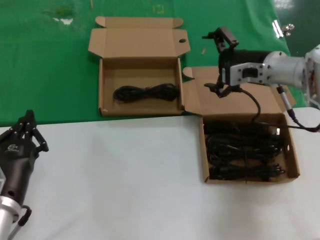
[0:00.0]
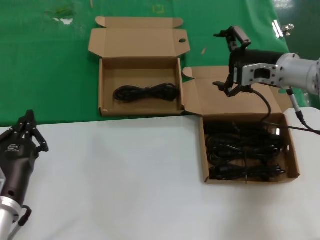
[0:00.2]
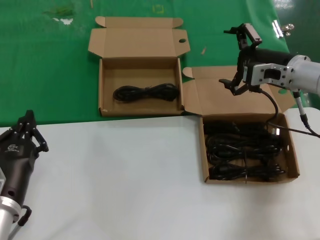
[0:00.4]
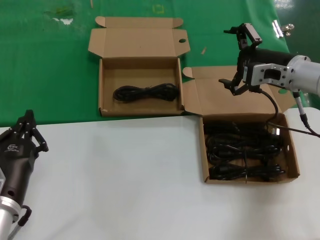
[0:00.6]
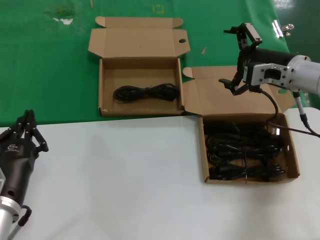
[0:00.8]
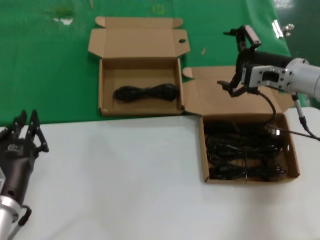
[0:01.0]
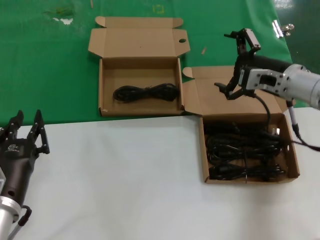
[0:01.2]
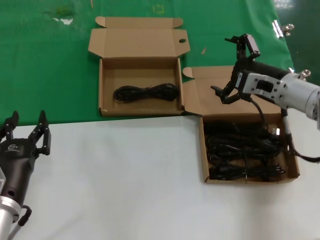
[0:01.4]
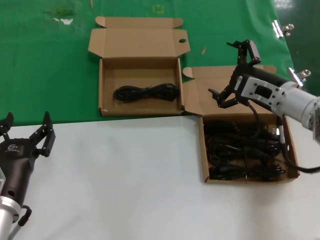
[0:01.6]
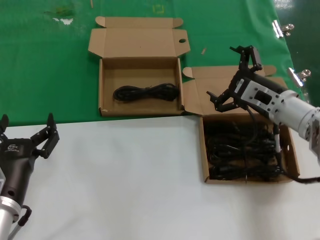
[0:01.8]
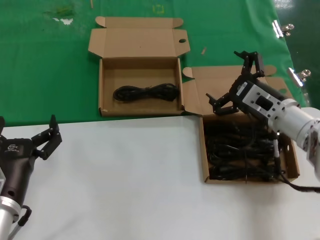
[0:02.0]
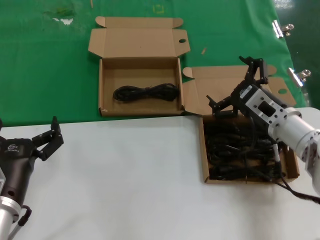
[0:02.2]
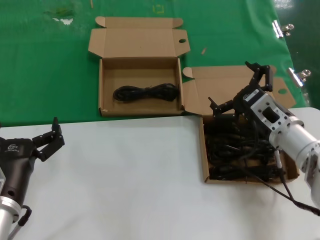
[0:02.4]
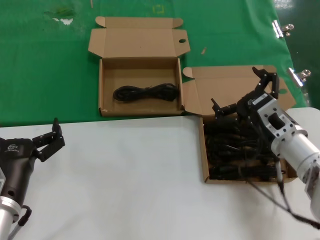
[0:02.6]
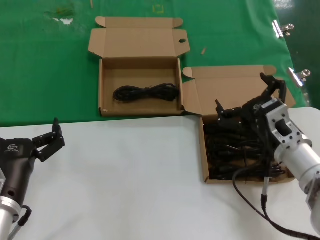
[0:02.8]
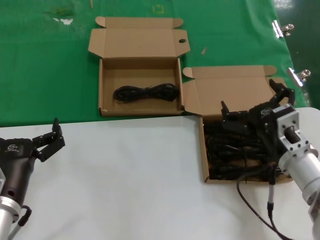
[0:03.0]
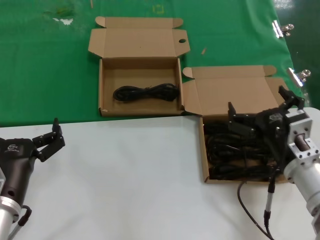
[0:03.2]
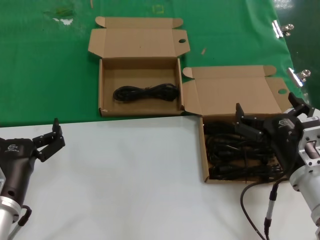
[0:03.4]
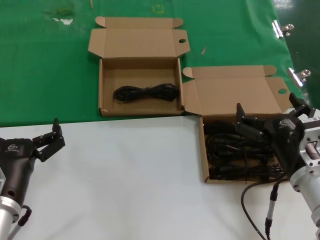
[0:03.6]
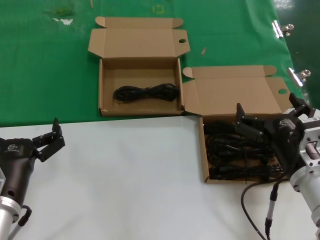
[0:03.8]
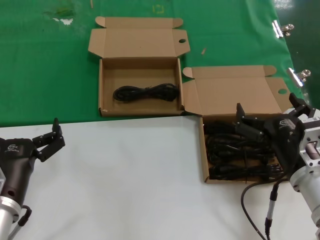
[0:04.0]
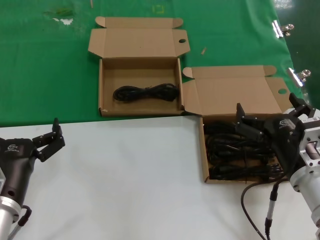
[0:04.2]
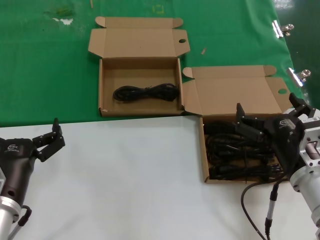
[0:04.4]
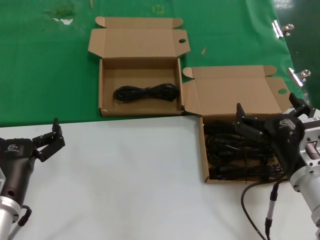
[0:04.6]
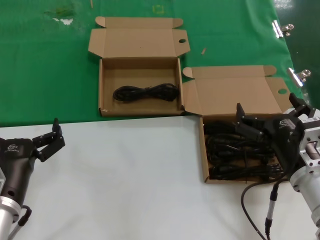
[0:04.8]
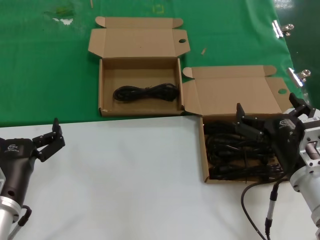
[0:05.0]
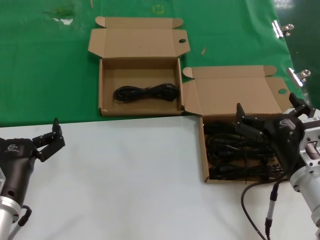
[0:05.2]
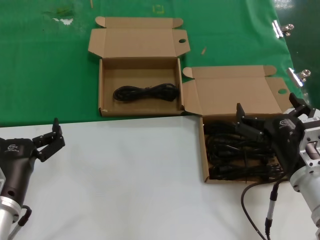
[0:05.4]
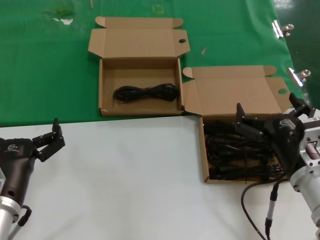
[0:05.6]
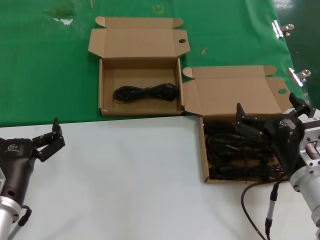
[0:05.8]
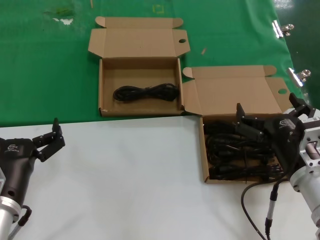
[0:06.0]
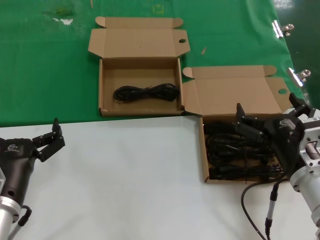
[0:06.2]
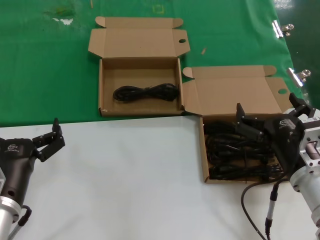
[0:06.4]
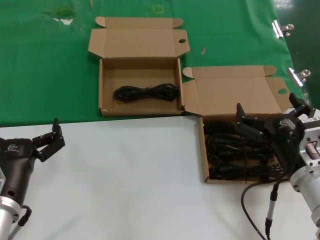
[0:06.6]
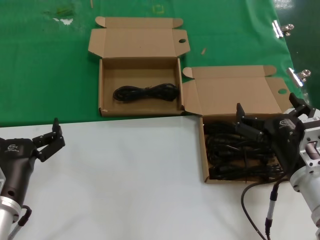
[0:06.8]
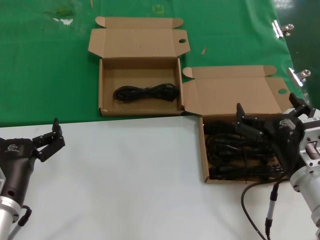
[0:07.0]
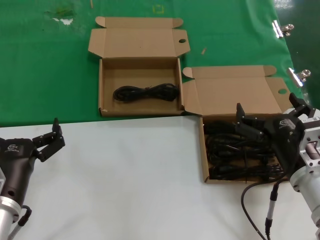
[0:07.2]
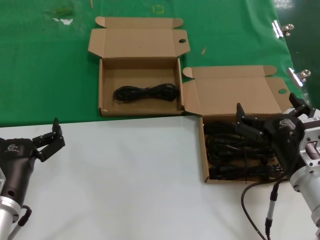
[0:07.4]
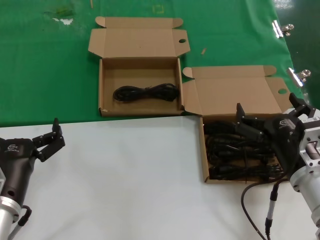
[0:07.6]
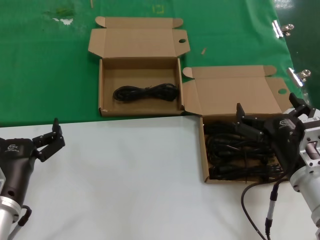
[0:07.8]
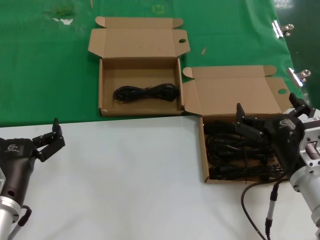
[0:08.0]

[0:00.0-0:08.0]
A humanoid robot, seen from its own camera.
Task of the whole recording: take the parts from the box containing them and put them into an empty box.
0.0 to 1.6 s: The right hand goes about 10 cm backward and downward.
1.6 to 3.2 s: The right hand goes roughly 15 cm backward and downward.
3.2 to 4.8 s: The hands stay close to where they were, moving slightly.
4.8 to 8.0 s: The two hands keep their place.

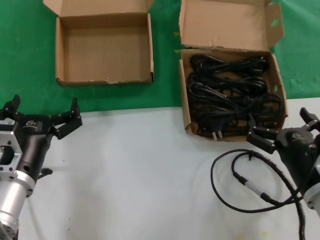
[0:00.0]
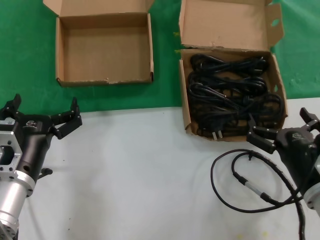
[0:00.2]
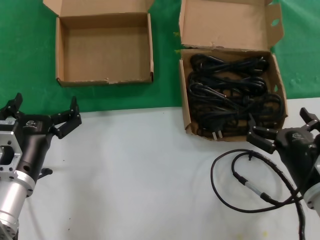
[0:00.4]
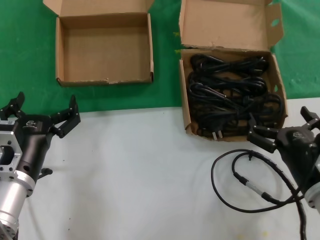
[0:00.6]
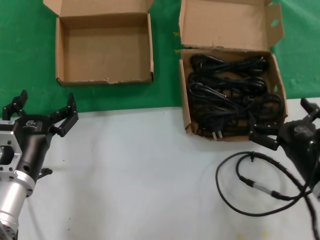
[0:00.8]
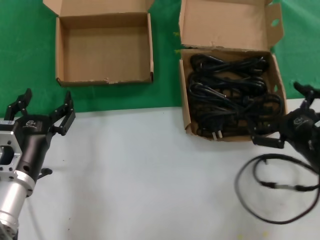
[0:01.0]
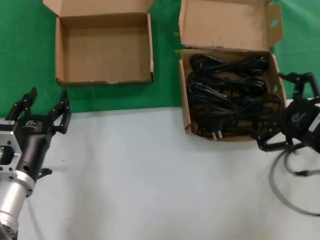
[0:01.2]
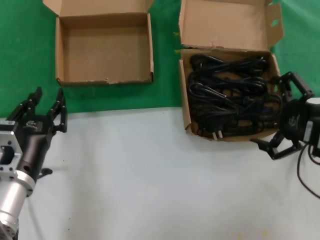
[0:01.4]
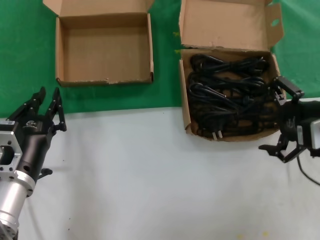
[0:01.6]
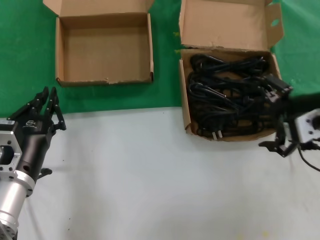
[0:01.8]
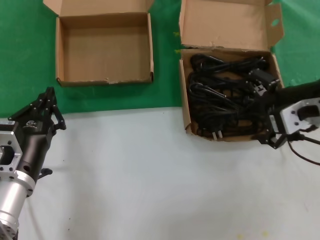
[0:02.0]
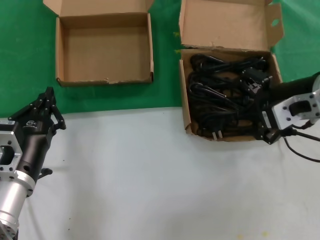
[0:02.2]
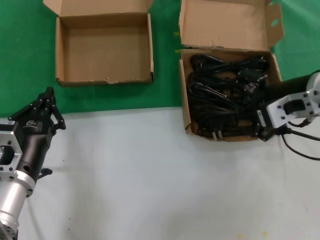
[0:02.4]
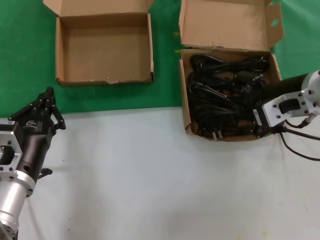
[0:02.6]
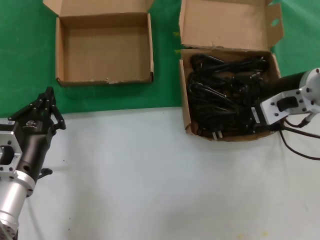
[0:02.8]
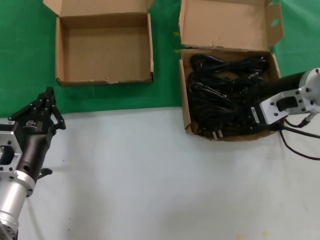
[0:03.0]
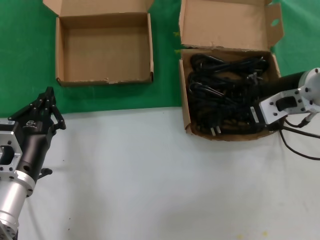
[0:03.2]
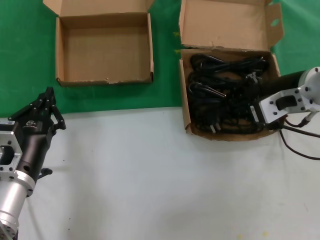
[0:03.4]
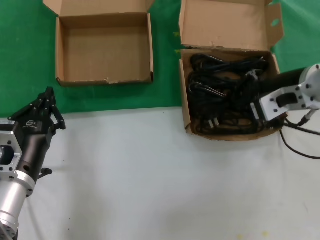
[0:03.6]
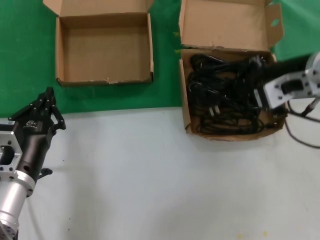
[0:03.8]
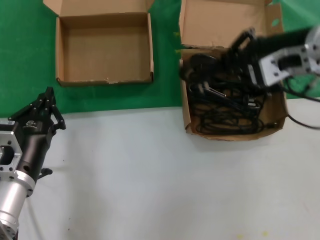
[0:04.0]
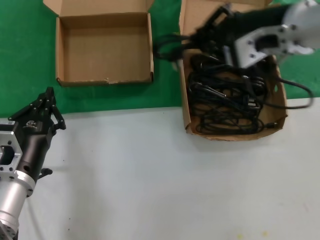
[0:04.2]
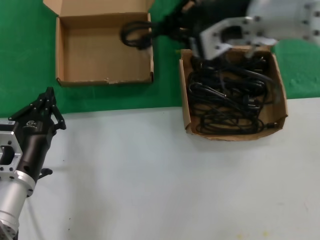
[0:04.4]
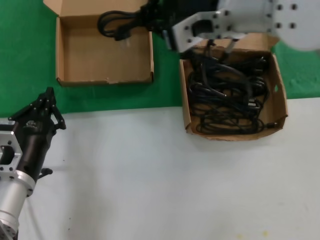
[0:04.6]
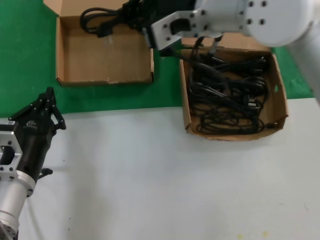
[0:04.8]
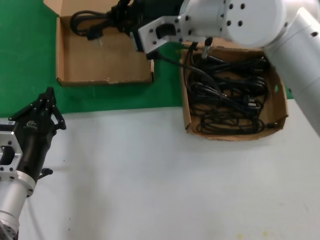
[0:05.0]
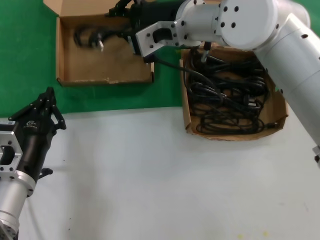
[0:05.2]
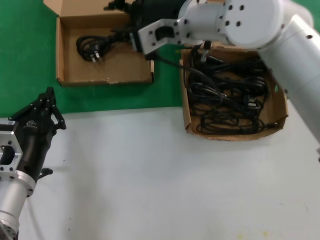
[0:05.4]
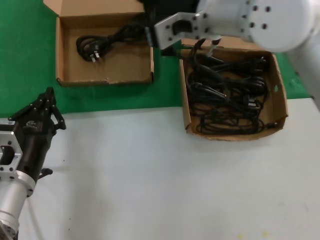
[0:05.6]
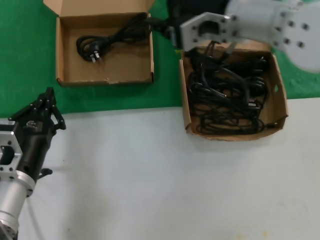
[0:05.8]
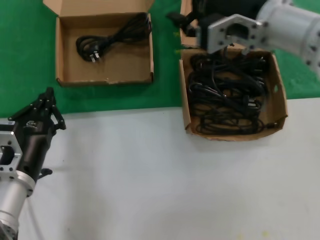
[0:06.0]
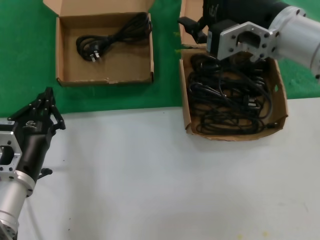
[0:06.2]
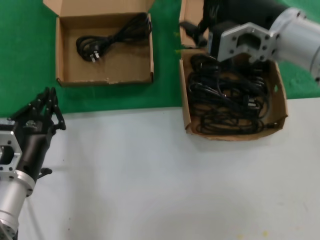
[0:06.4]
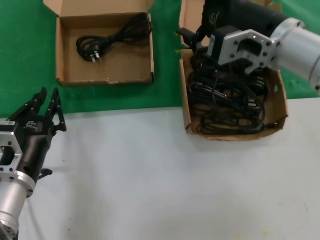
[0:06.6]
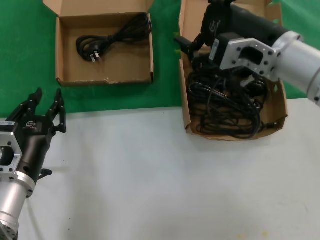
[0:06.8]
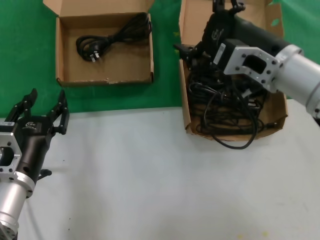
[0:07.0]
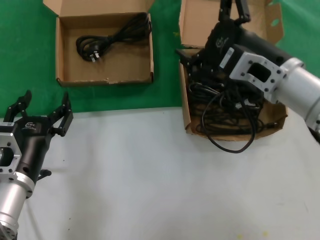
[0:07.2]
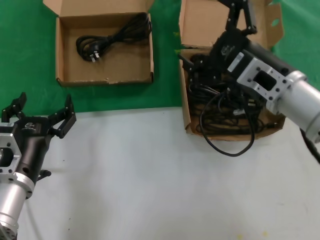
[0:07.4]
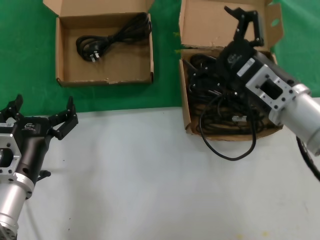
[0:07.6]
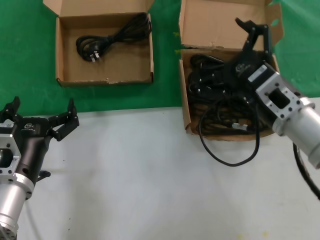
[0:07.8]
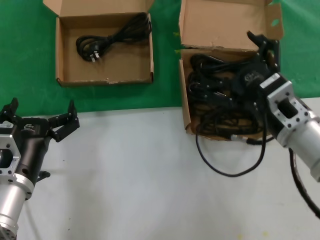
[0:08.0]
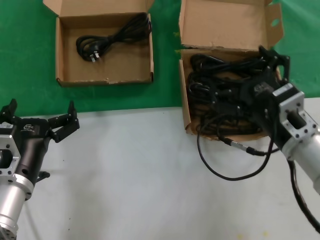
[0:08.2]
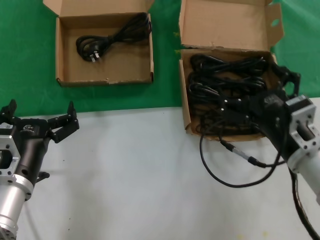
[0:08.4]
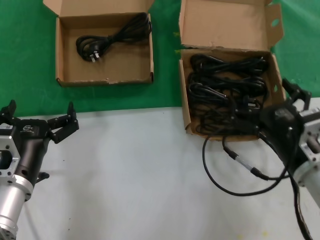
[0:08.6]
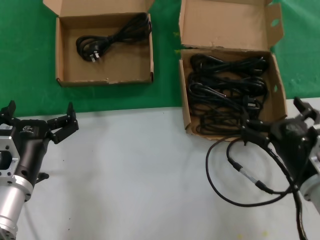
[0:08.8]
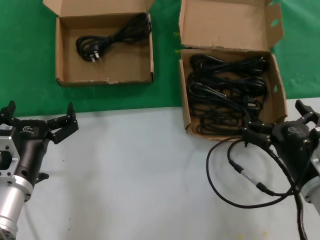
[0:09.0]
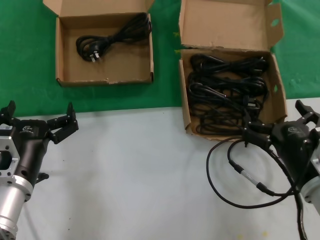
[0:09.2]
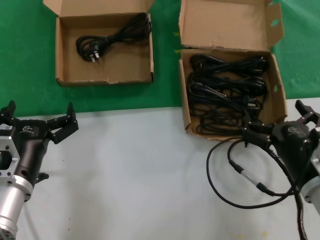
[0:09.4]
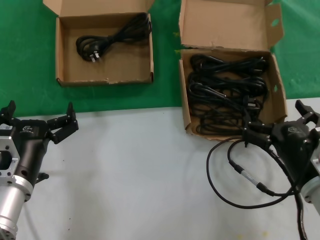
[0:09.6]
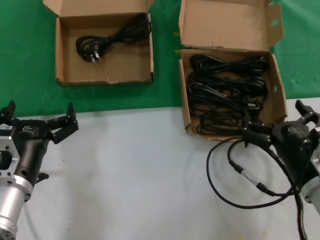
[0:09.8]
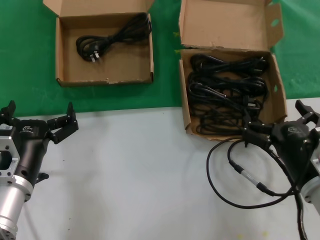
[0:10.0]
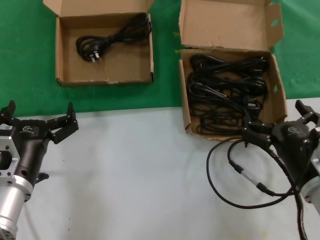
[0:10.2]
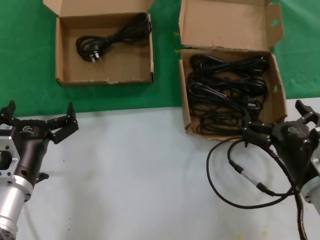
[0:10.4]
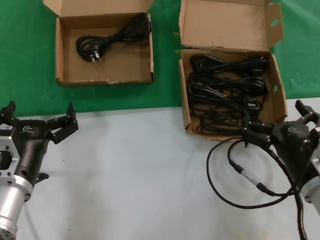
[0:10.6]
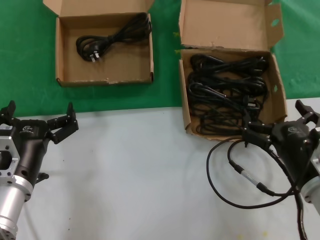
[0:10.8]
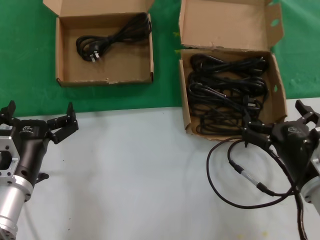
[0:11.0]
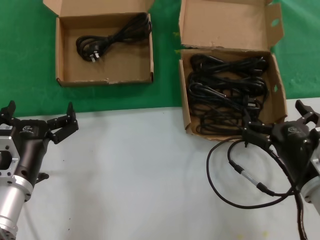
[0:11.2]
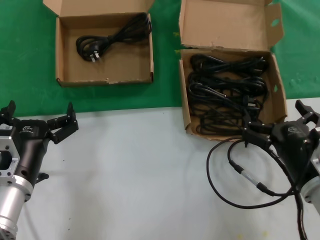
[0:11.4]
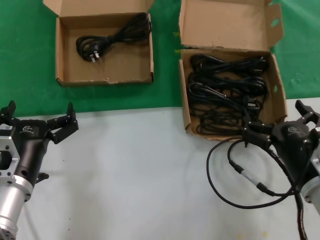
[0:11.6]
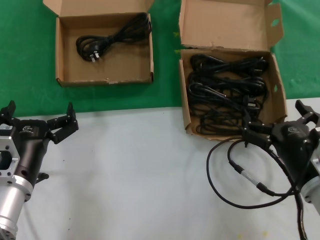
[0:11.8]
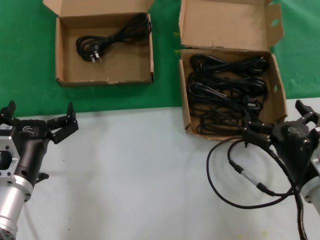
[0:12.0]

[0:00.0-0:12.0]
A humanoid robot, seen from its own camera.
Task of the whole recording: take the parts from the box containing them and put them into an empty box.
Step, 0.0 to 3.4 s: Grasp the data cable.
Step, 3.6 to 5.2 s: Place the data cable in the another box.
0.0 to 1.6 s: The right hand moves upward, about 15 cm.
1.6 to 3.0 s: The right hand moves forward and to the left, approximately 10 cm.
3.0 to 4.4 s: The right hand moves upward and to the left, approximately 15 cm.
4.4 to 6.0 s: The right hand goes to the left and returns, roughly 10 cm each way.
6.0 to 7.6 s: The right hand is displaced downward by about 15 cm.
7.6 to 9.0 s: The right hand heads downward and backward, covering roughly 15 cm.
9.0 to 12.0 s: Both hands stay put.

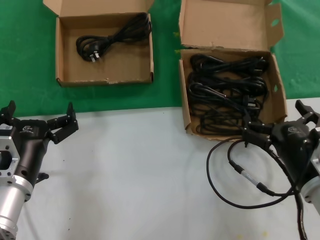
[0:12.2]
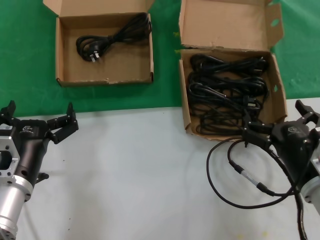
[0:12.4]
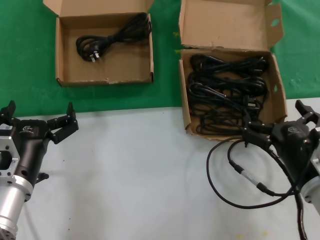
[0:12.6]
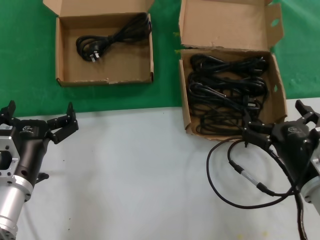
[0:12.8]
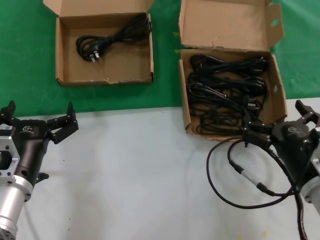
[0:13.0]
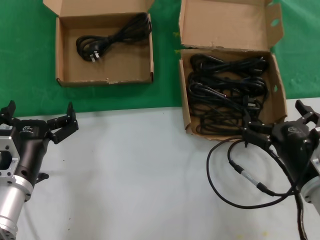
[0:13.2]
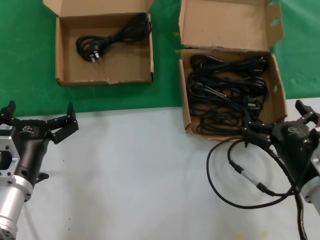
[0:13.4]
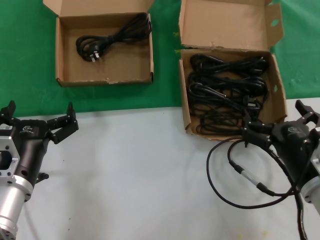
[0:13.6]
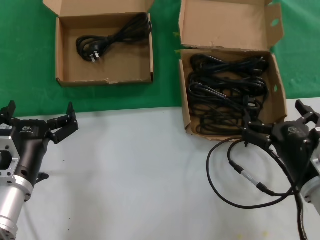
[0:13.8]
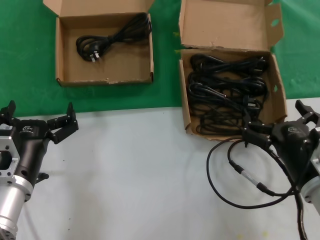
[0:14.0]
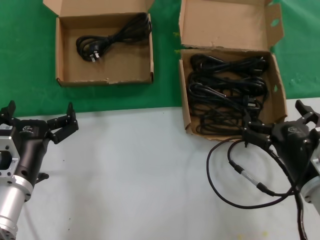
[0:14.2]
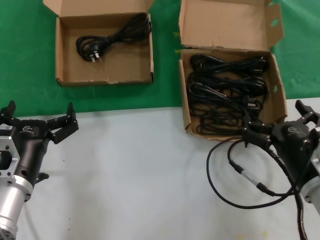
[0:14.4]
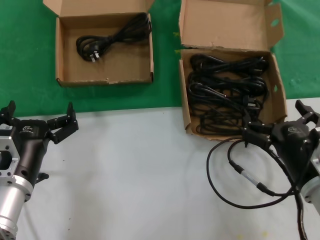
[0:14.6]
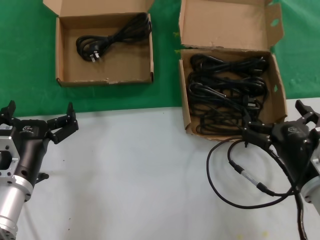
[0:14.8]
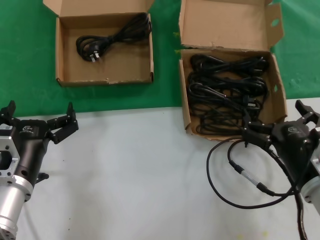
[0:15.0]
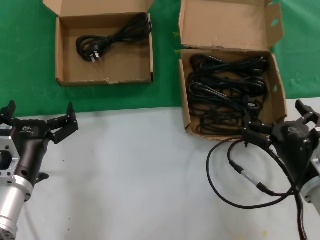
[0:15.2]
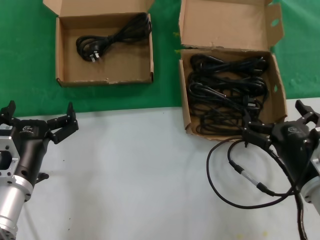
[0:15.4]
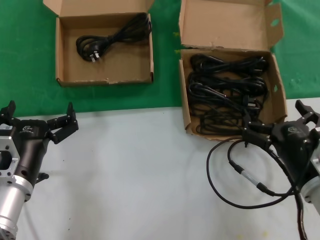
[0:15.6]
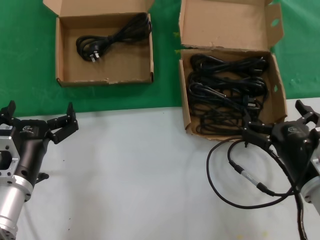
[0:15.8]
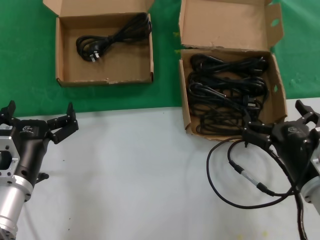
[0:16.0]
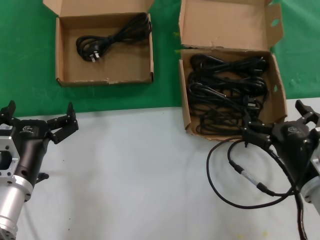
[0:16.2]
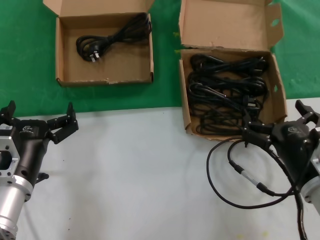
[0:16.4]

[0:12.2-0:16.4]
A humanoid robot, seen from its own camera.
Task of the whole recording: take the parts from the box containing them and put them into an empty box.
12.2 to 16.4 s: Both hands stay about where they are.
